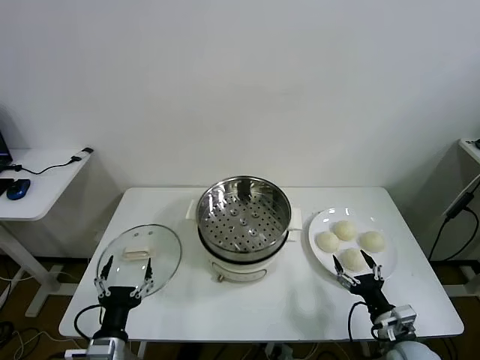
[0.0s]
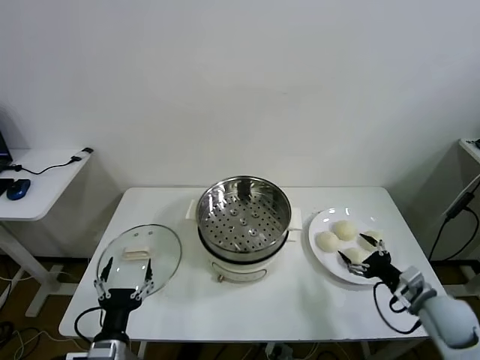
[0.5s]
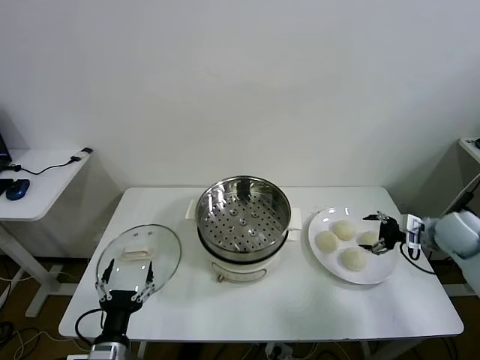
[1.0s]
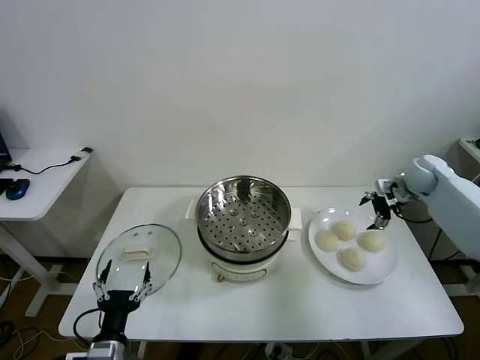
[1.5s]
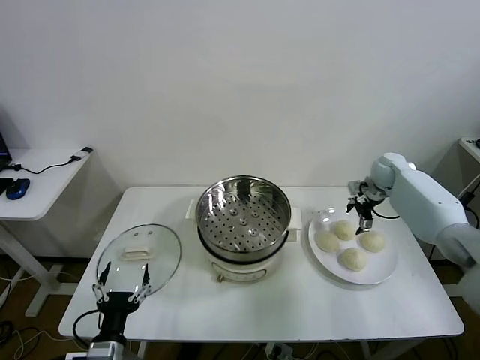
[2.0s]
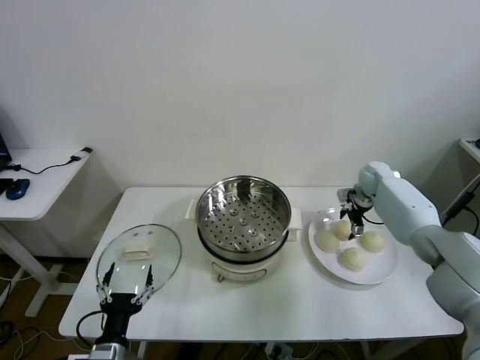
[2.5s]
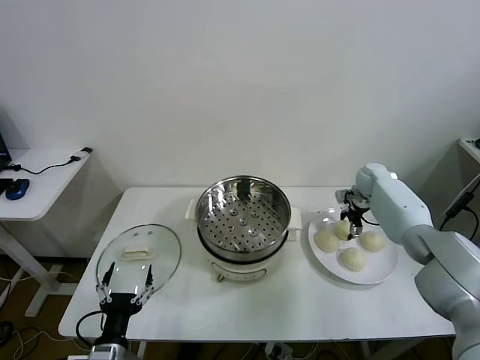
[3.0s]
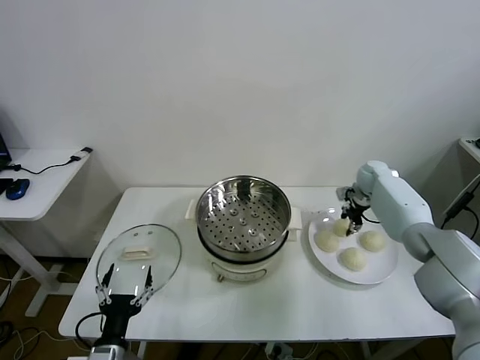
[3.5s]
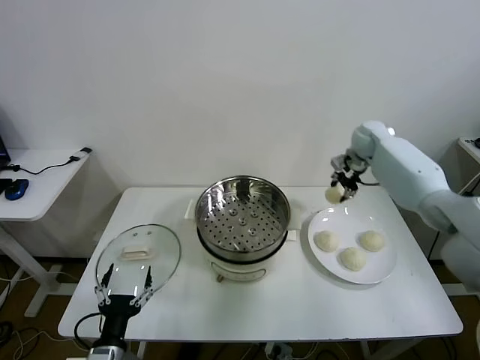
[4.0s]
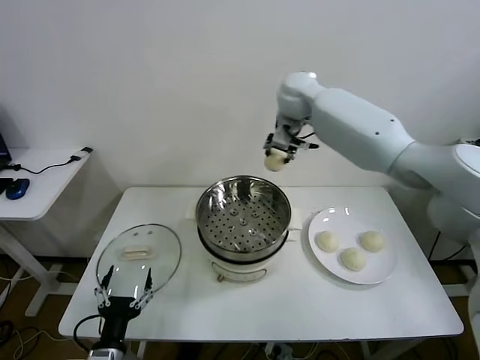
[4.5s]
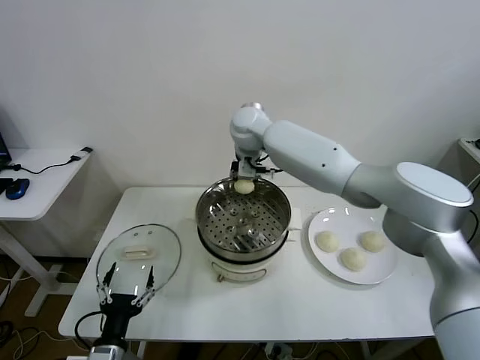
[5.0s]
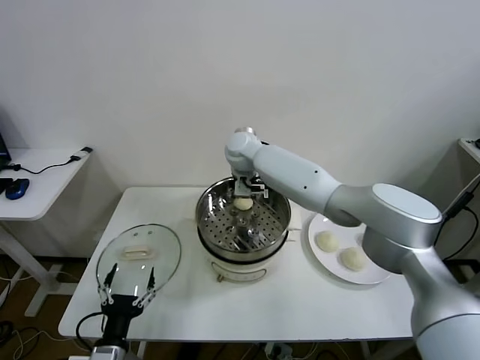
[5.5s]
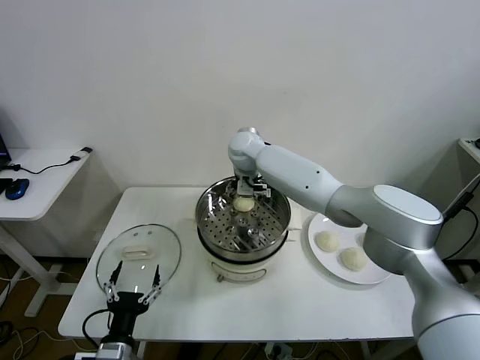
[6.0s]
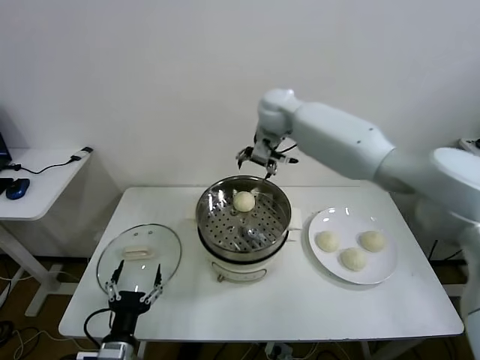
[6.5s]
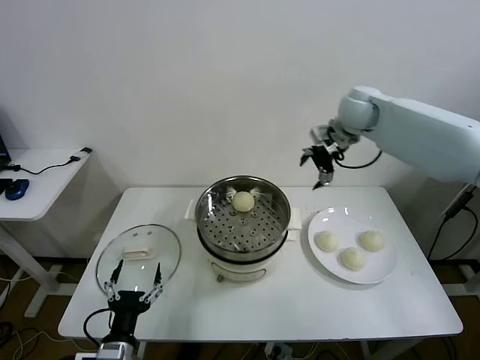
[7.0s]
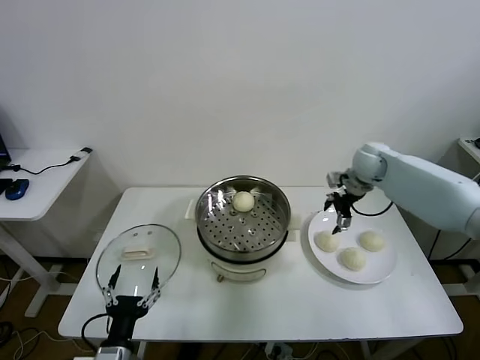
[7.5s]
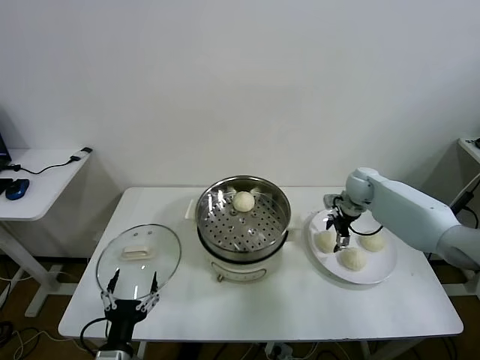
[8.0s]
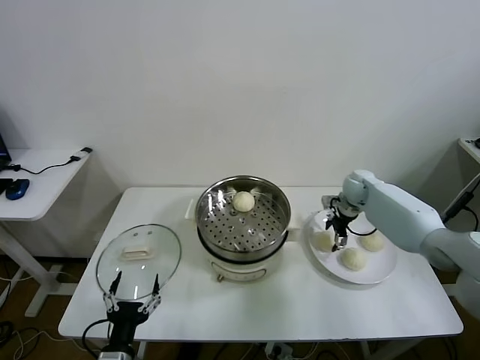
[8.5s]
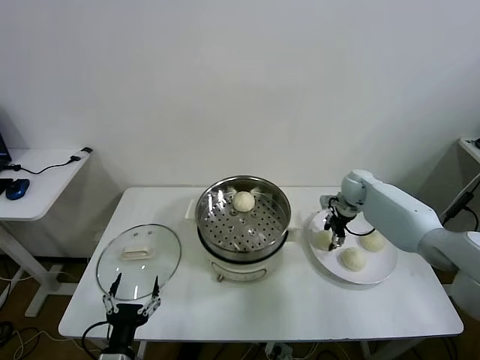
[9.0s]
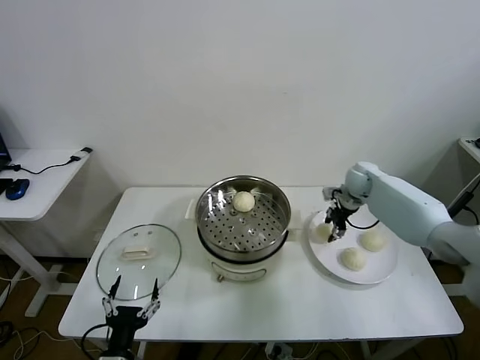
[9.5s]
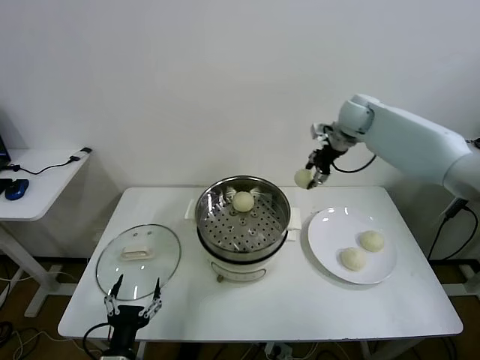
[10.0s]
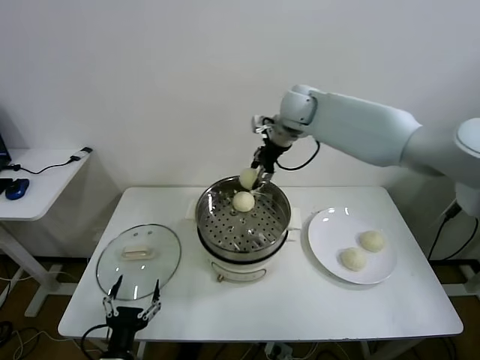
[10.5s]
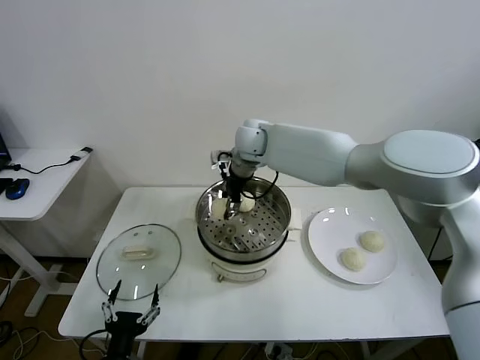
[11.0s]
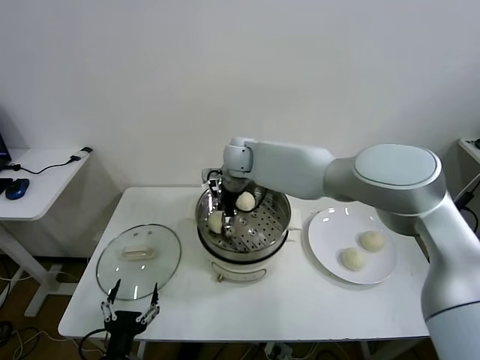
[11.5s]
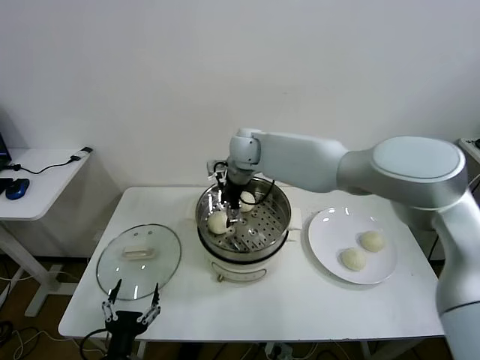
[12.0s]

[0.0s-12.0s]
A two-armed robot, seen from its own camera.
Task of the whole recording: take steamed baozi put them in steamer.
Step, 0.0s to 3.0s: Grasp the baozi in the plate with right gripper.
Step, 3.5s to 6.0s: Place the baozi on the steamer with right gripper.
Step, 6.5s to 8.5s: Grasp the baozi in the plate with right gripper.
Step, 9.0s to 11.5s: Place the baozi on the steamer with right gripper.
2.0s to 4.0s: The right gripper travels upward and to the left by roughly 15 cm, and closes.
4.0s to 6.0s: The right gripper goes about 30 cm to the left, and opens.
6.0s to 8.0s: The right gripper heads to the right and downward, covering approximately 35 cm.
8.0s to 10.0s: The right gripper moves upward, roughly 20 cm, and closes up.
10.0s to 12.0s: The right gripper goes roughly 25 cm to the left, and opens.

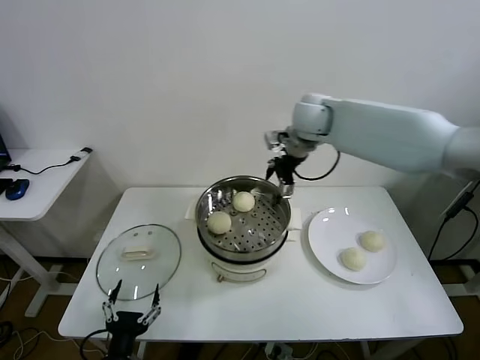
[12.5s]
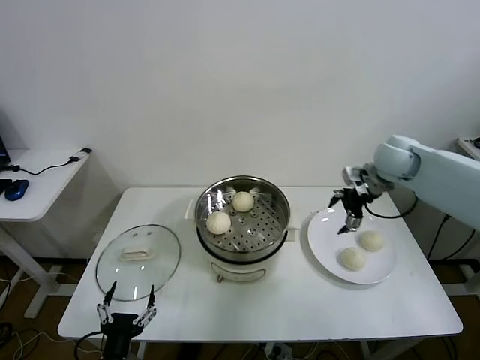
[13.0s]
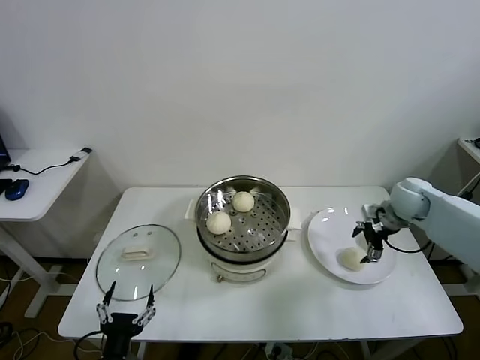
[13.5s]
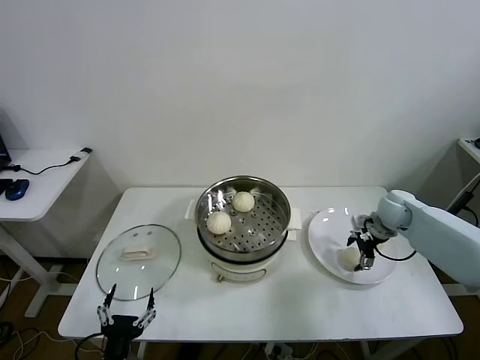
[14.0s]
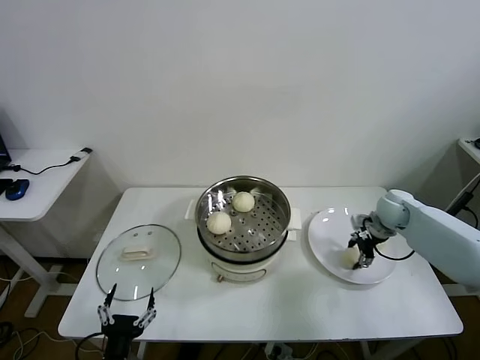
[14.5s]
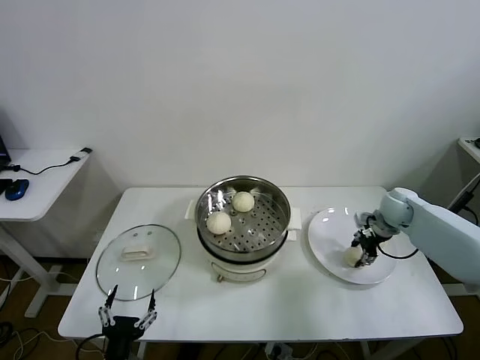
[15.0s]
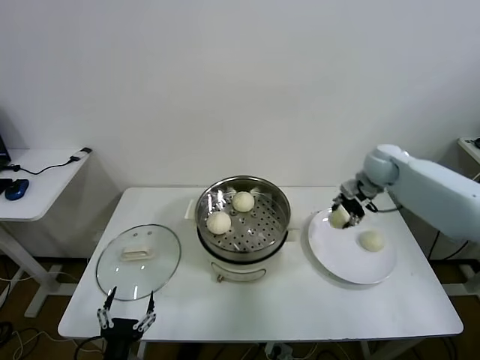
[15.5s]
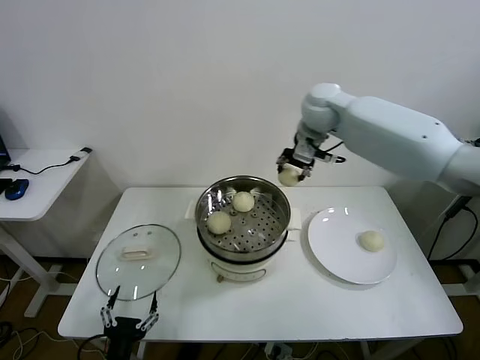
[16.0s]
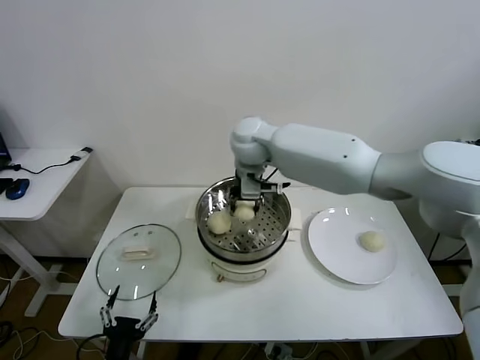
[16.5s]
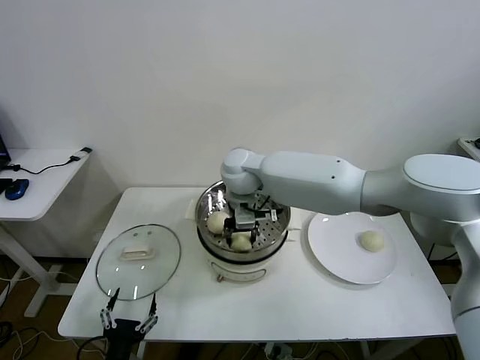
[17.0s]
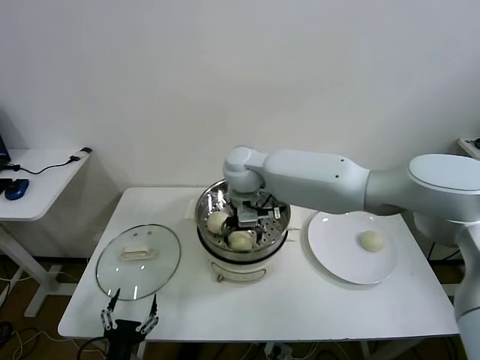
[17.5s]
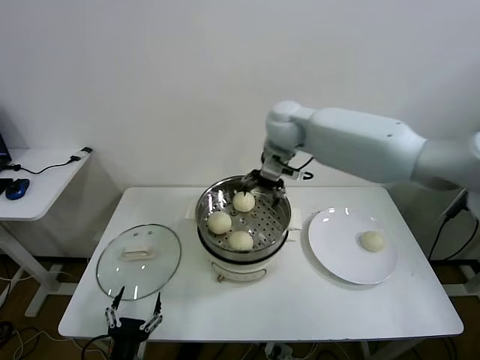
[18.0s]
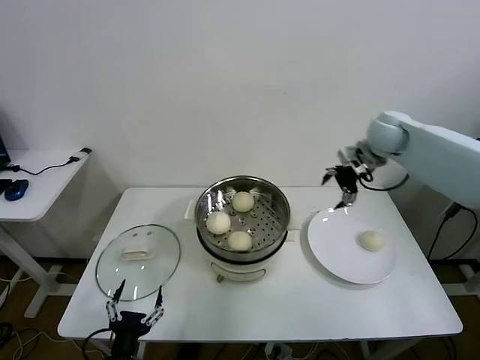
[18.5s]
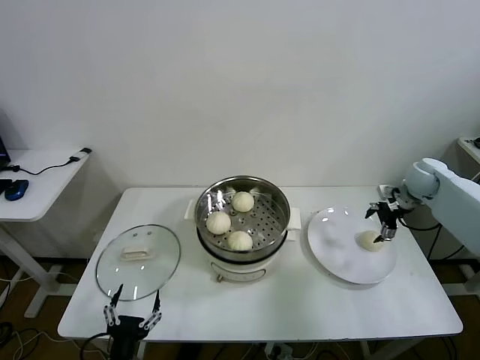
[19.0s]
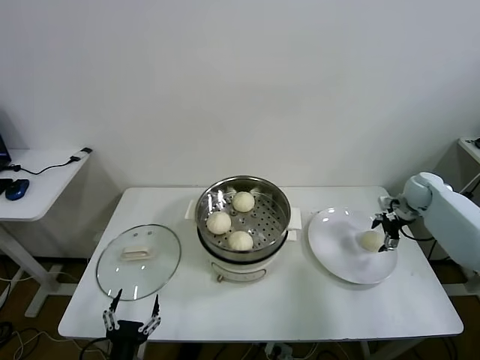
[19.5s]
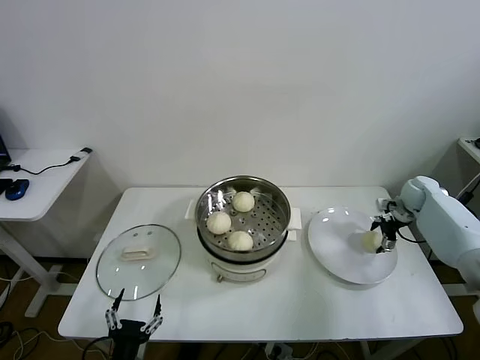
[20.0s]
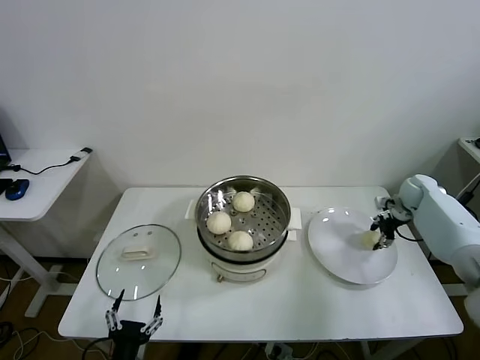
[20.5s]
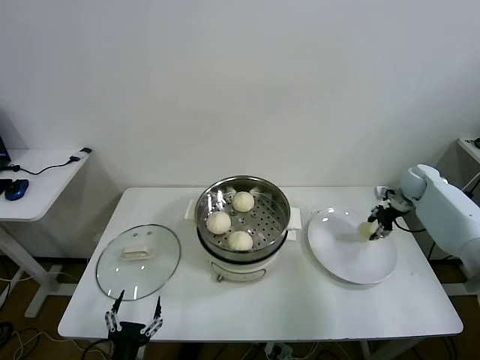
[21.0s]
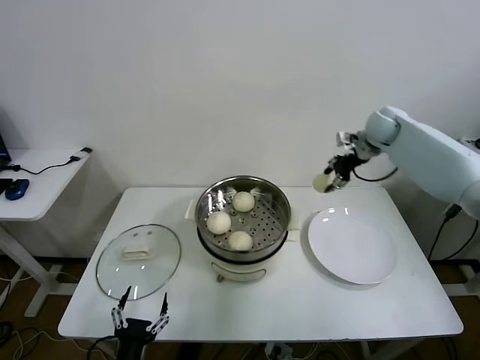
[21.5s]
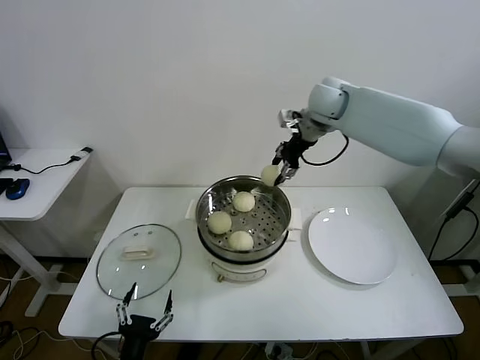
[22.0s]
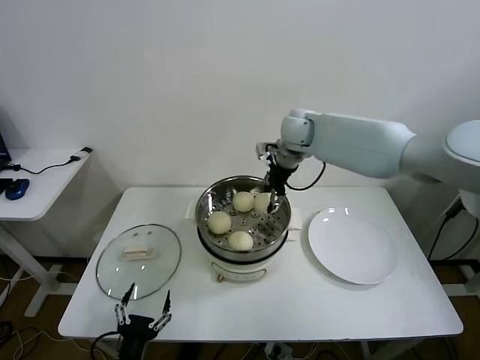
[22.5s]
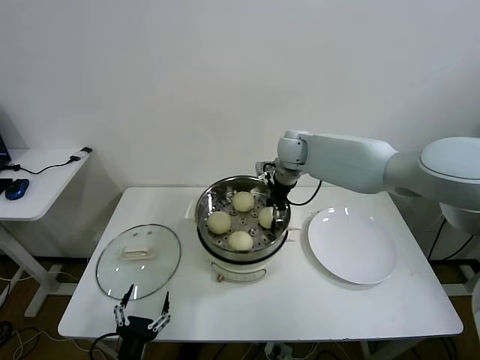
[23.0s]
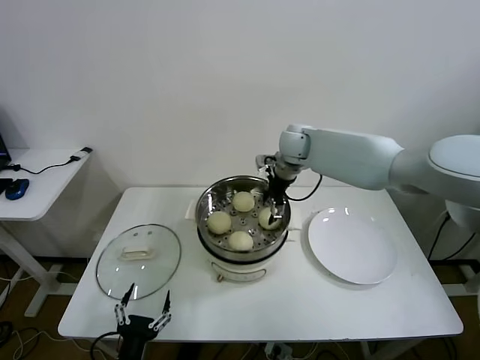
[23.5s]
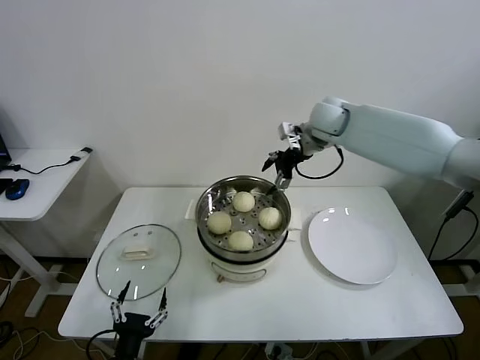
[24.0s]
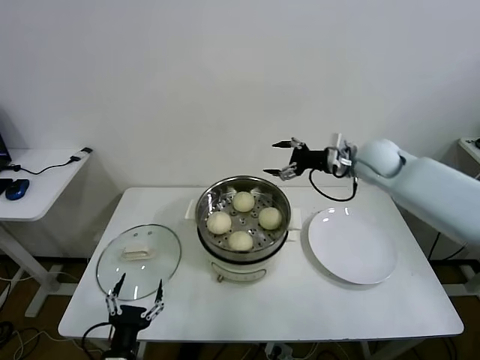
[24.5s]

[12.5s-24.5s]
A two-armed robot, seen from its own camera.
Task of the whole recording: take steamed baozi put them in steamer.
Step, 12.5s to 14.5s: Grasp the baozi in the plate with right gripper.
Step, 15.0s to 17.5s: Place the baozi on the steamer with right gripper.
Step, 18.0s to 20.0s: Grasp the baozi in the plate with right gripper.
Step, 20.5s to 23.0s: Place the baozi on the steamer with right gripper.
12.5s to 14.5s: The right gripper shifts roughly 35 cm downward and to the right, and closes.
14.5s to 16.5s: The right gripper shifts about 40 cm to the left and upward.
16.5s to 18.5s: The right gripper moves to the right, about 35 cm, and opens up.
18.5s to 20.5s: The right gripper travels downward and to the right by about 25 cm, and closes up.
20.5s to 22.5s: The right gripper moves to the left and upward, some 40 cm.
22.5s to 24.5s: The right gripper is displaced to the right and backward by some 20 cm, and opens up.

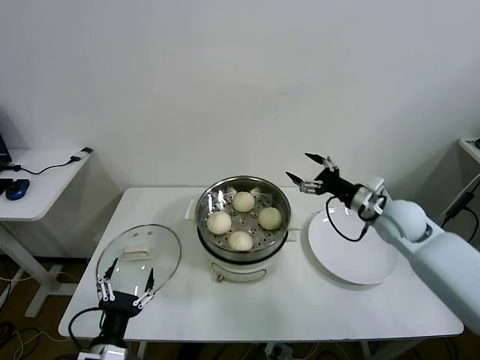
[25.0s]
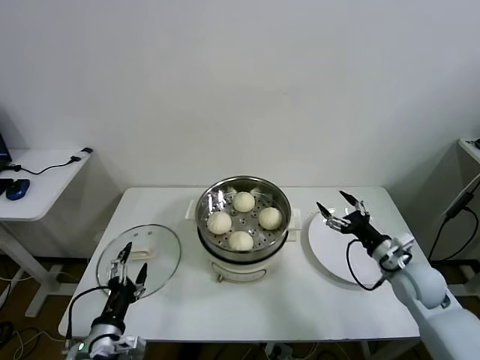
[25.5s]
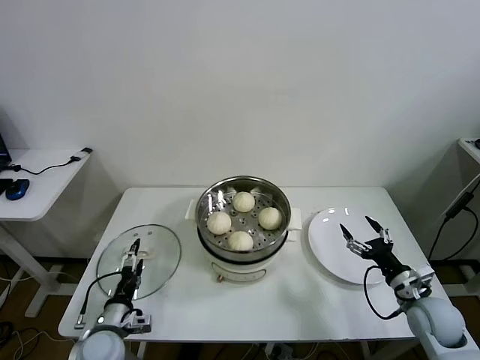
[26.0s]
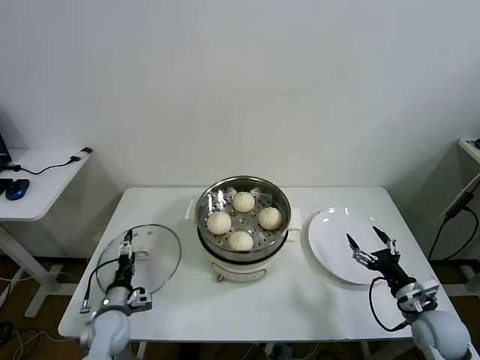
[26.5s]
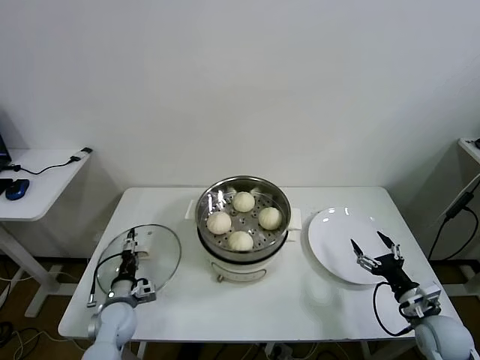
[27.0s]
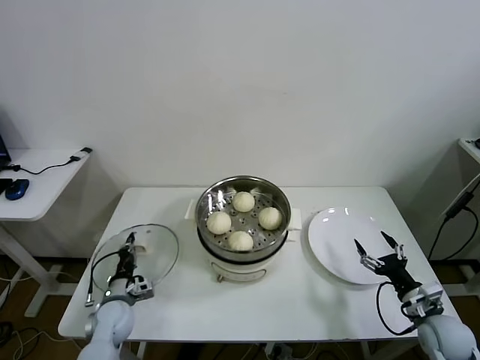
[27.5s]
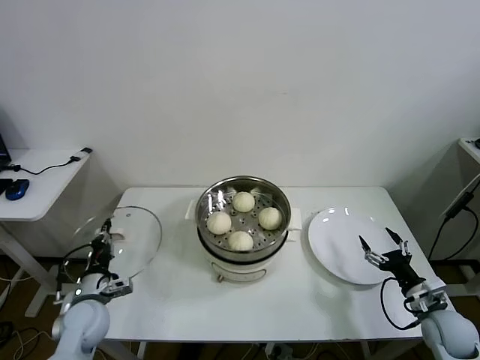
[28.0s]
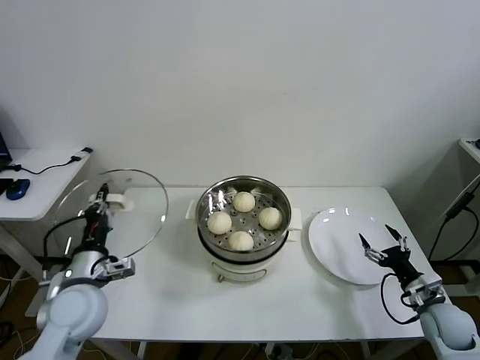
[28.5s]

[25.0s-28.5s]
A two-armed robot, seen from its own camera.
Task of the whole recording: take steamed baozi put them in steamer.
Step, 25.0s to 27.5s: Grasp the pot lid with left gripper.
25.0s to 27.0s: The left gripper is displaced forward and downward by some 20 cm, while the right gripper travels backward, downward and to the right by roughly 25 cm.
27.0s to 28.5s: The left gripper travels upward by some 20 cm, and closes its fingers.
